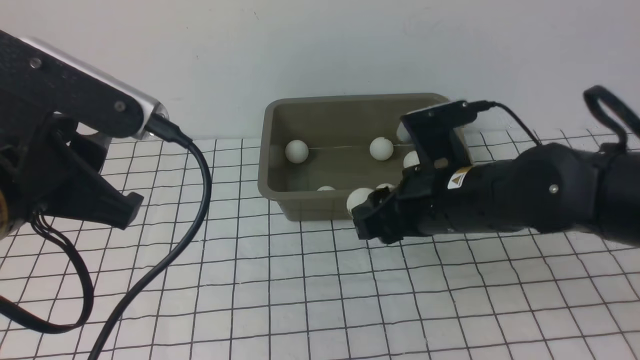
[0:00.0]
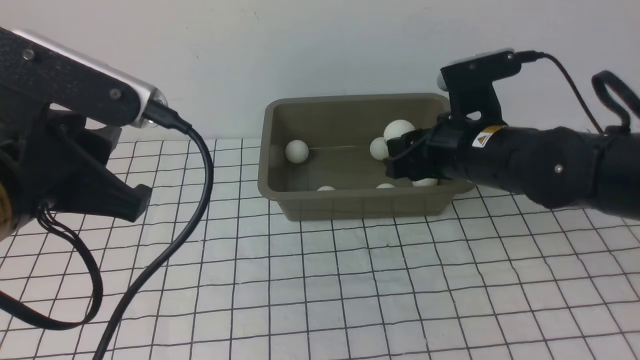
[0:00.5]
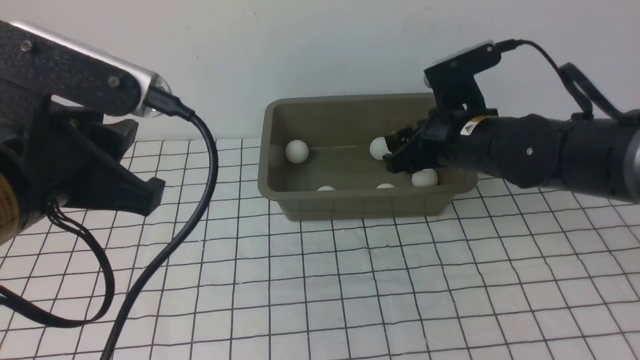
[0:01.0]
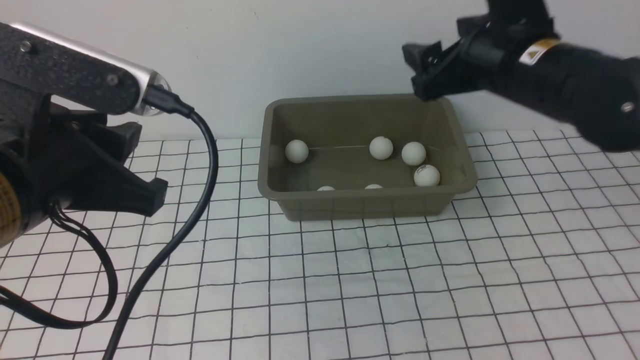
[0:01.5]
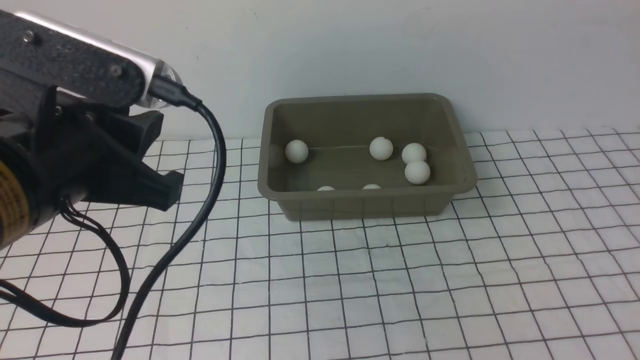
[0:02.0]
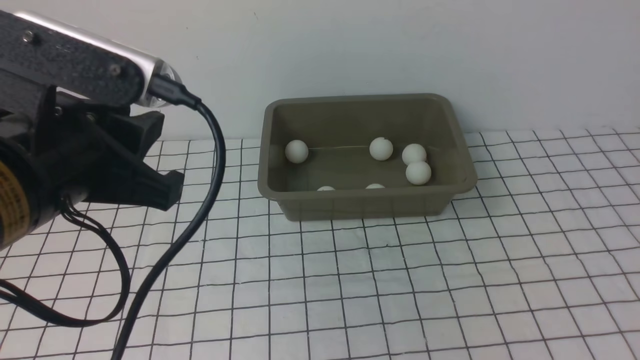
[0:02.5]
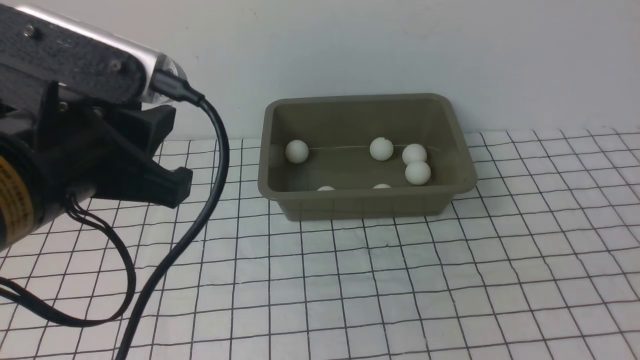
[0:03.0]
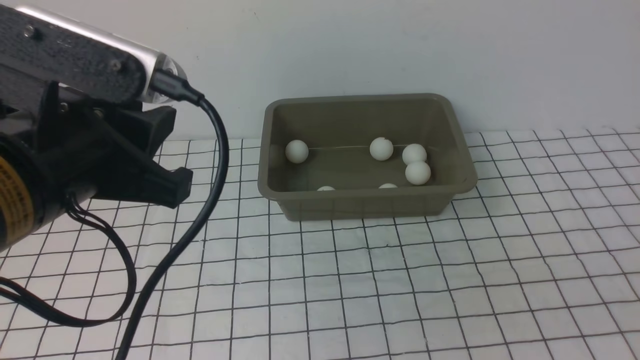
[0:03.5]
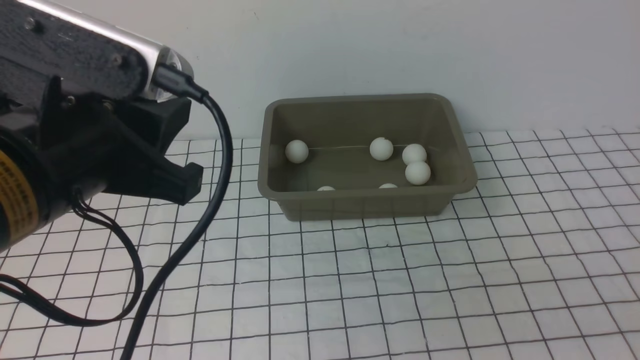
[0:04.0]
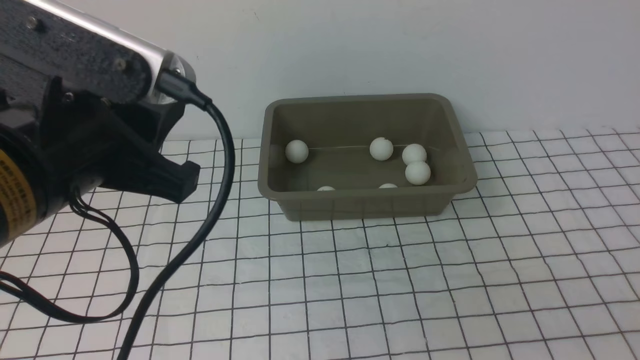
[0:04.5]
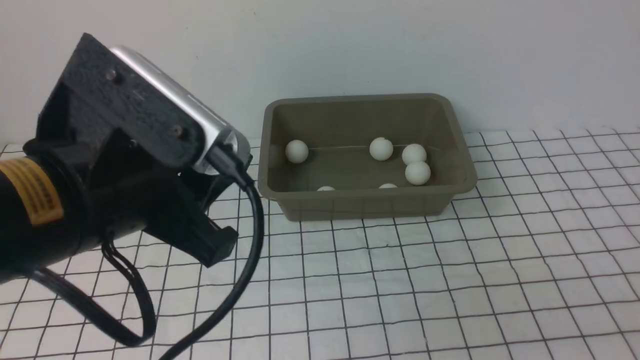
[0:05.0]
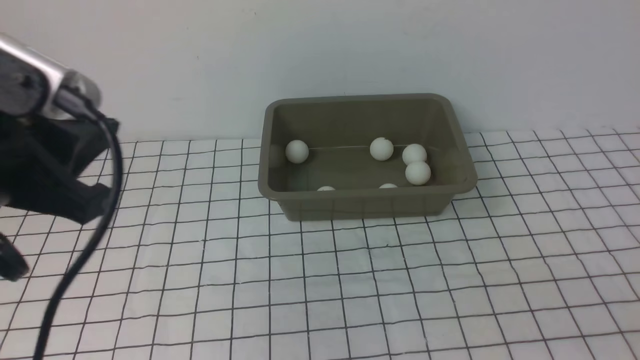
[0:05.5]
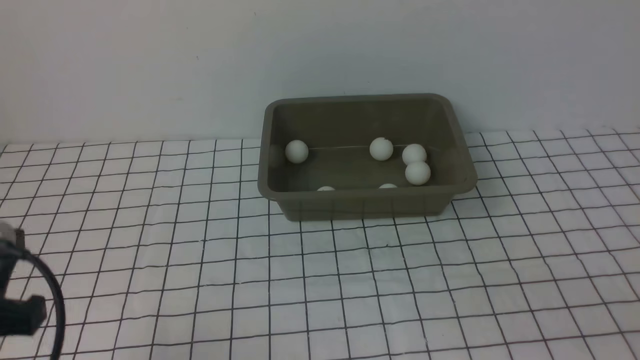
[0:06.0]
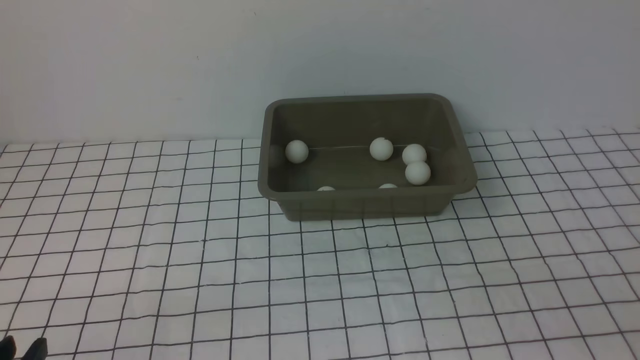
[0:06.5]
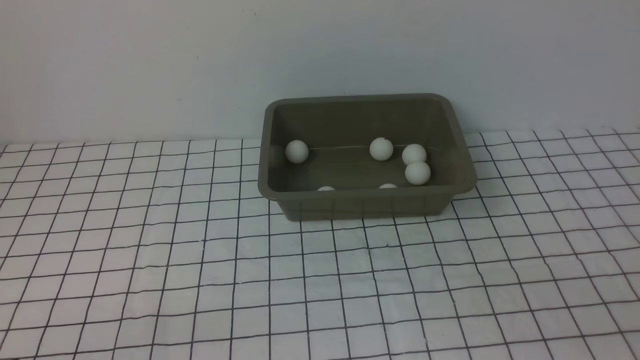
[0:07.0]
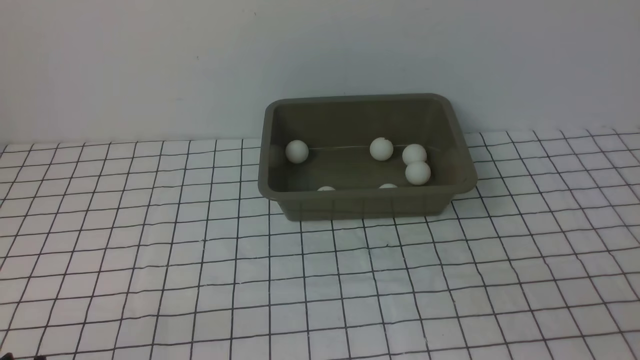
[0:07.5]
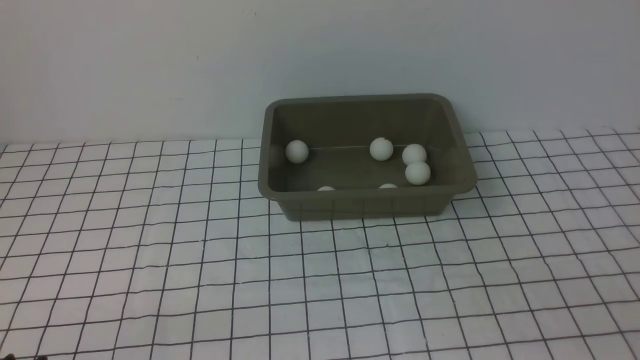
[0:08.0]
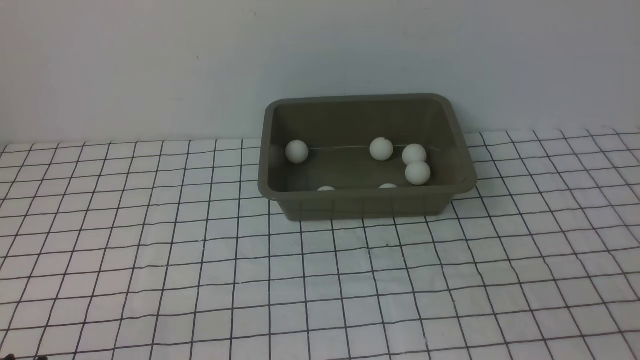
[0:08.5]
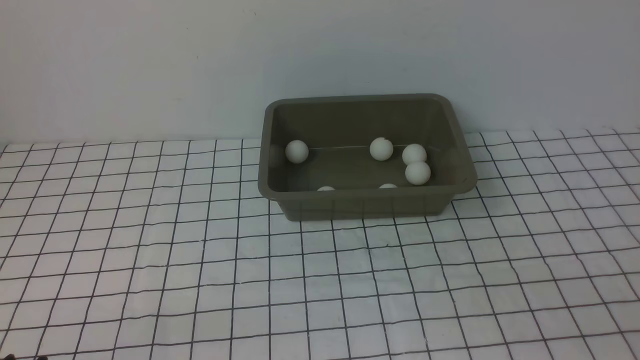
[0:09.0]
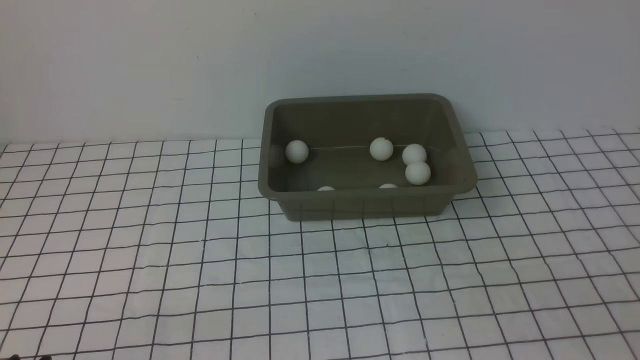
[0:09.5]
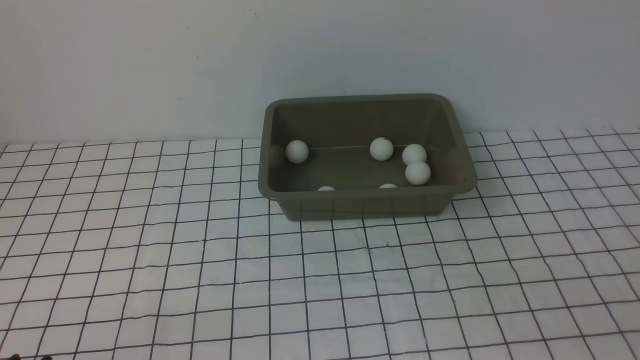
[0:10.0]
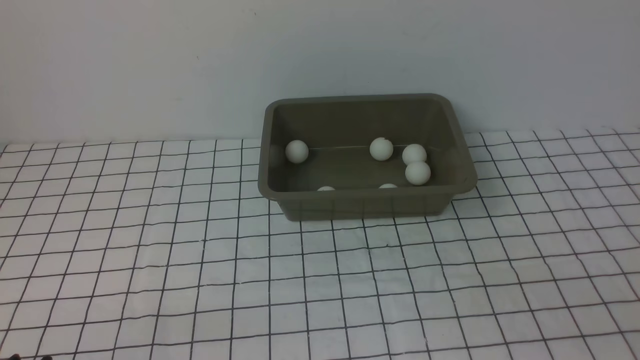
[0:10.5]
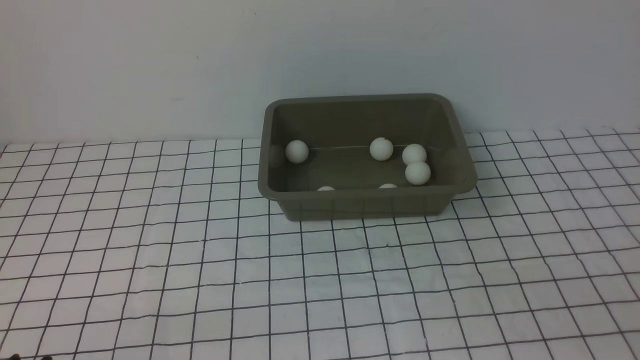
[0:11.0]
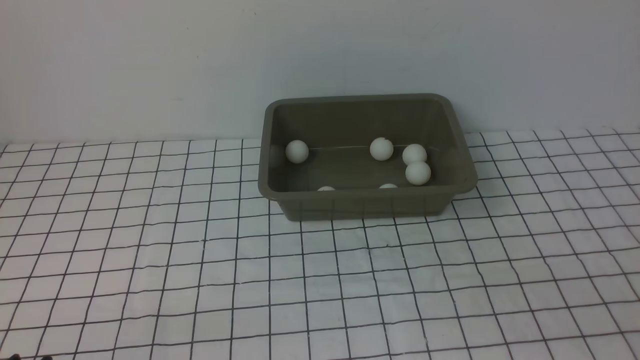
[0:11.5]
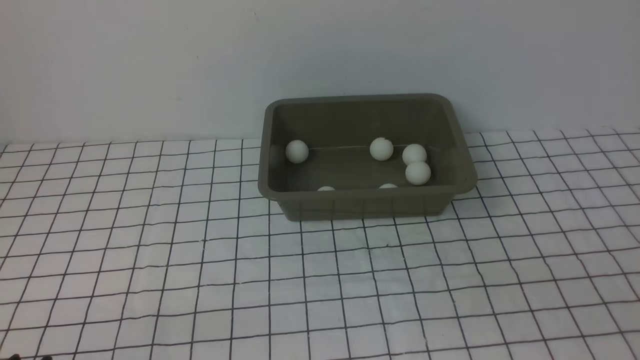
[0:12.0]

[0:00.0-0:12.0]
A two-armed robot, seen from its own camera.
Step, 0:00.0 to 0:01.0: use the right arm to put the table tennis ball into the box.
0:00.0 to 0:02.0: The right gripper shifts some 25 cm upward and to the right, and opens.
0:02.0 to 0:04.0: The right gripper heads downward and backward, covering about 25 cm.
0:04.0 to 0:06.0: The left gripper goes roughly 15 cm to the left, downward and backward.
0:06.0 to 0:08.0: The left gripper travels downward and backward by approximately 10 cm.
0:08.0 to 0:10.0: Both grippers stay about where they are.

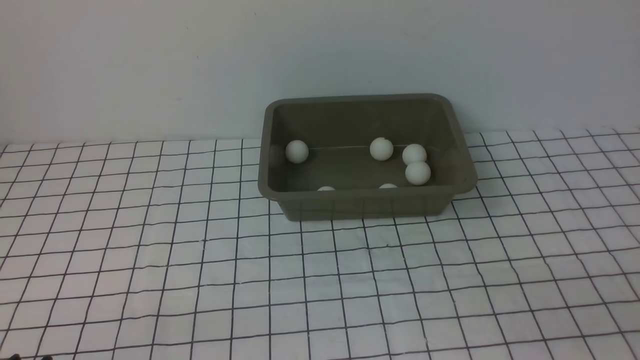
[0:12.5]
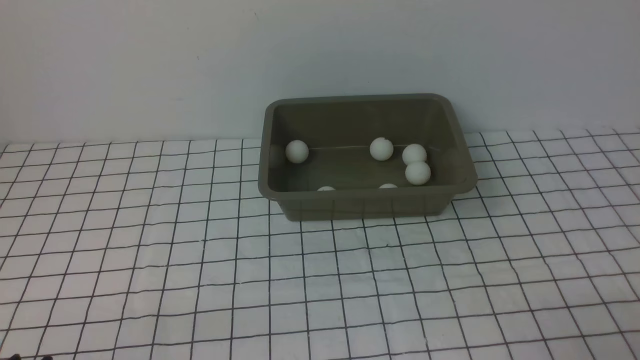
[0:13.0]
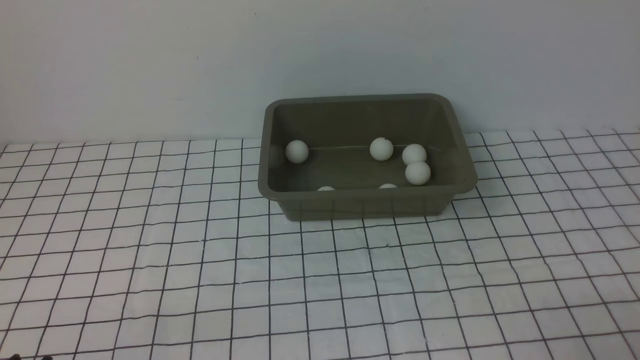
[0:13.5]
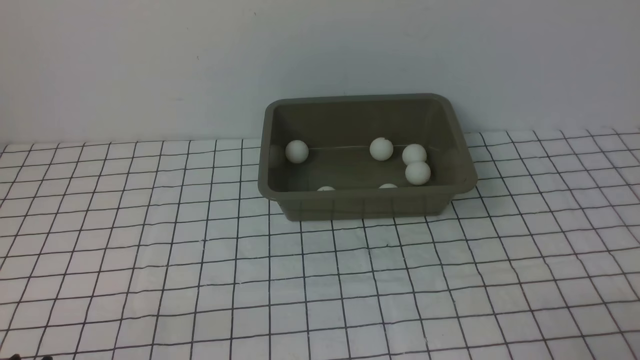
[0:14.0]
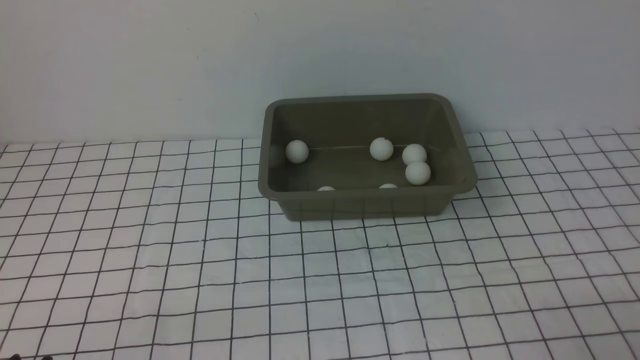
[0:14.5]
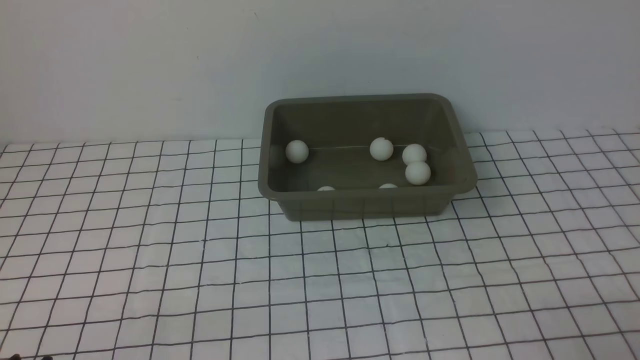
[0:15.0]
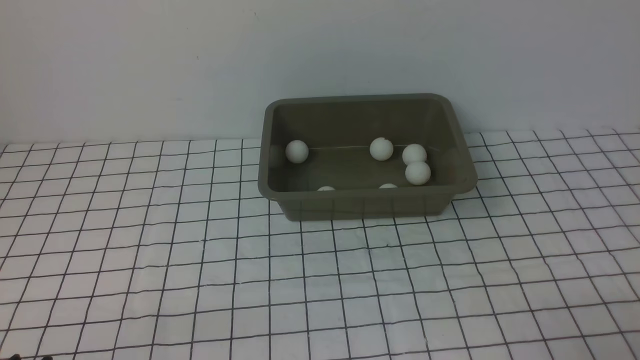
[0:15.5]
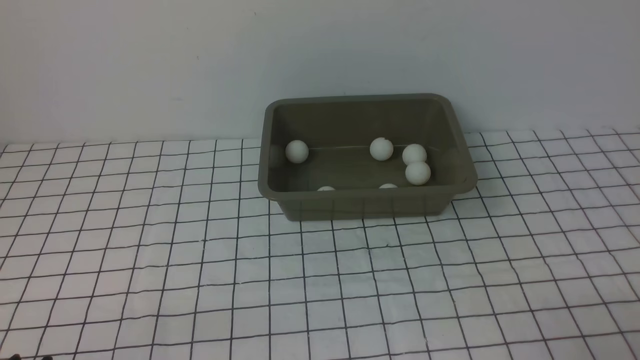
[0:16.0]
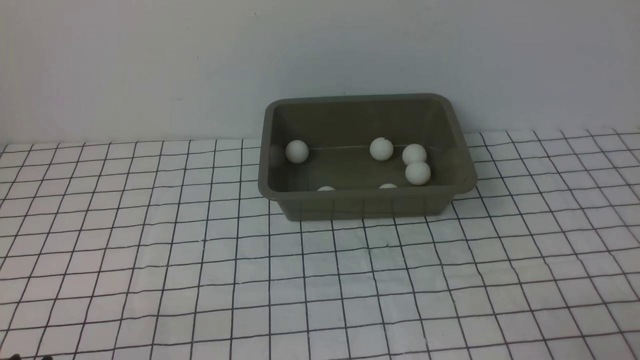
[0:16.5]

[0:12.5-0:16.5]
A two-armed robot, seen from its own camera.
0:14.5 to 0:16.5: Neither gripper changes place.

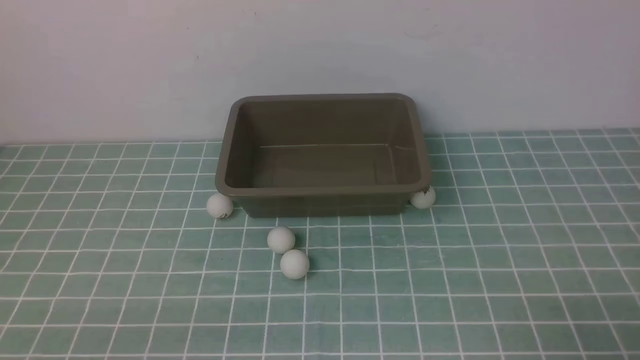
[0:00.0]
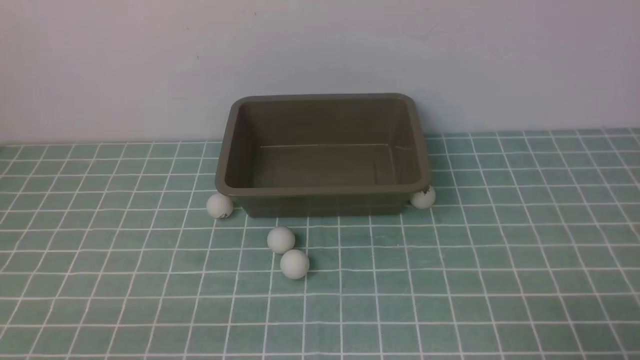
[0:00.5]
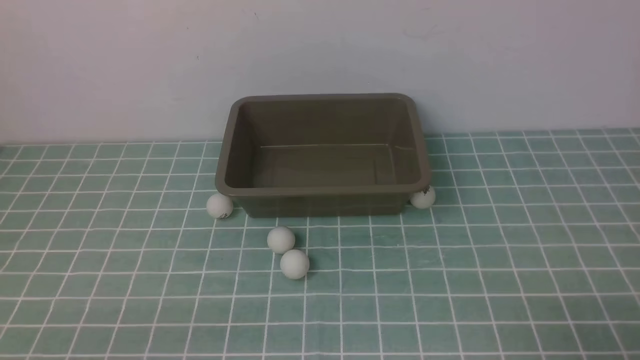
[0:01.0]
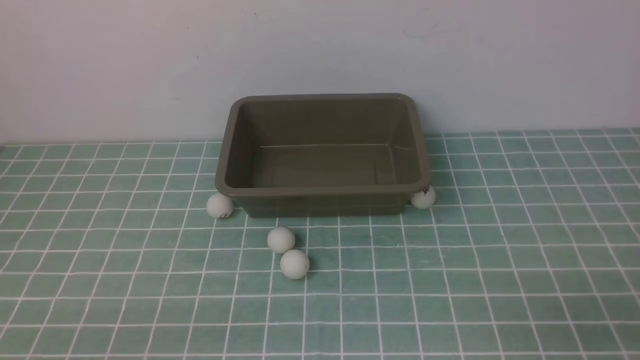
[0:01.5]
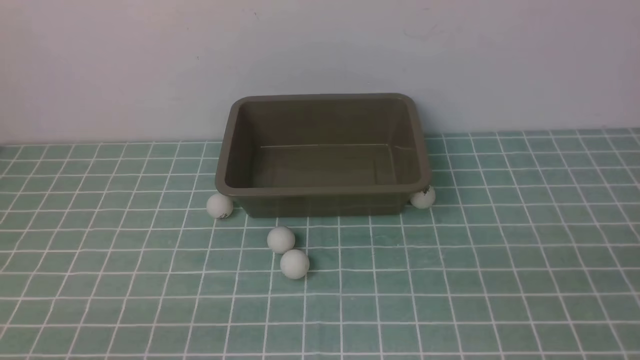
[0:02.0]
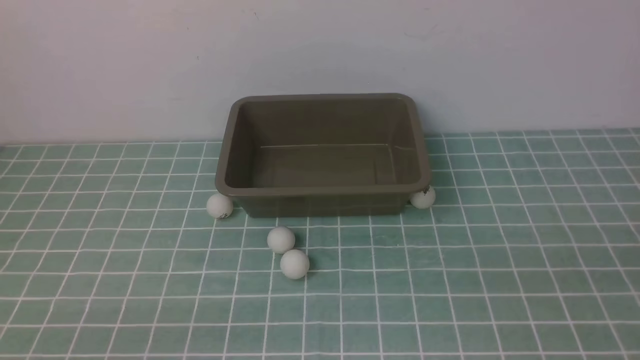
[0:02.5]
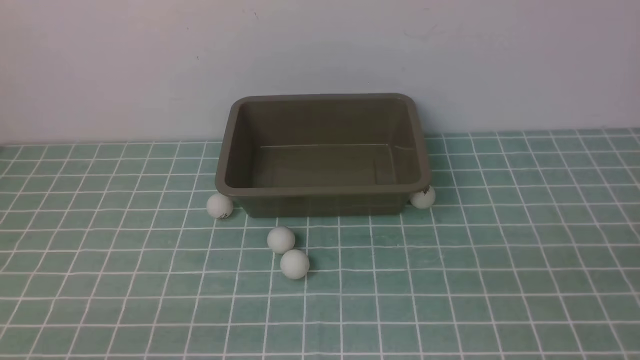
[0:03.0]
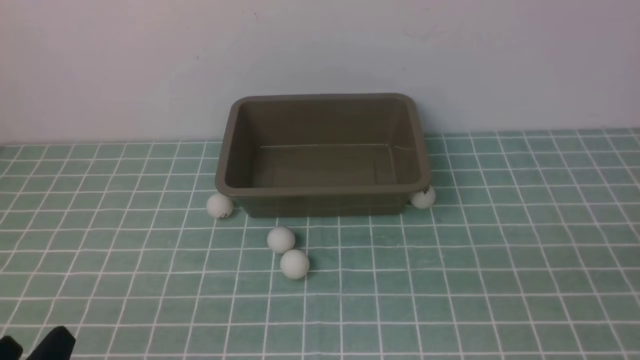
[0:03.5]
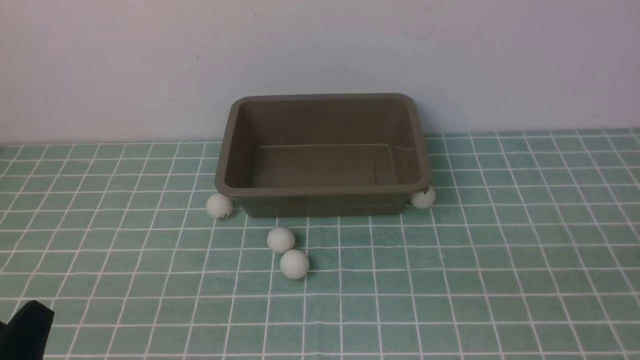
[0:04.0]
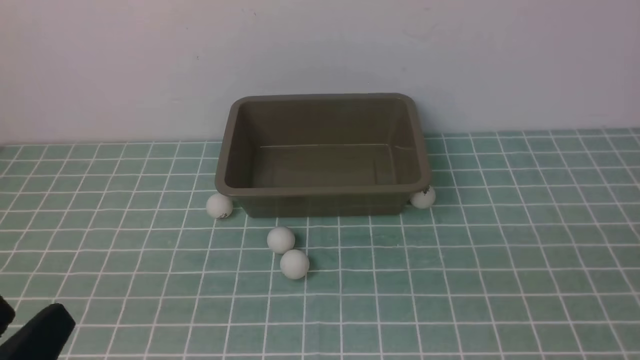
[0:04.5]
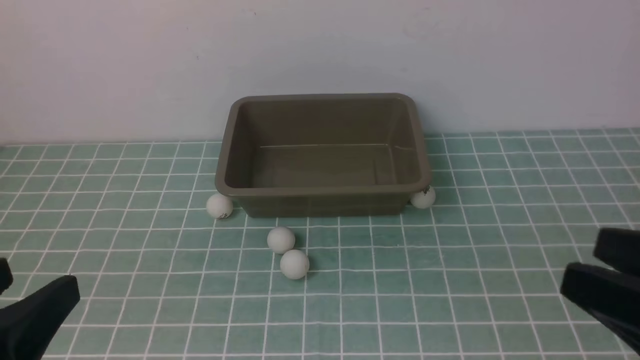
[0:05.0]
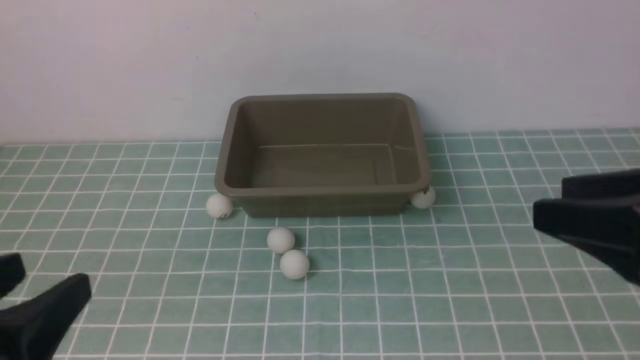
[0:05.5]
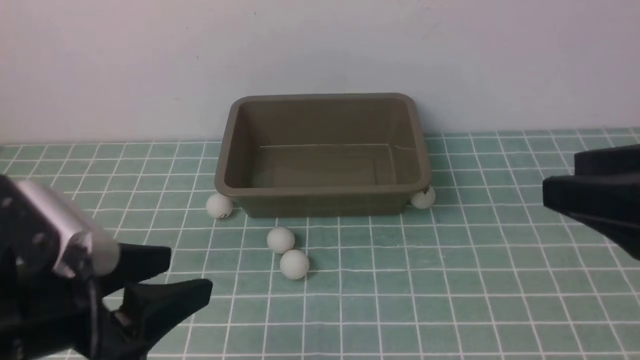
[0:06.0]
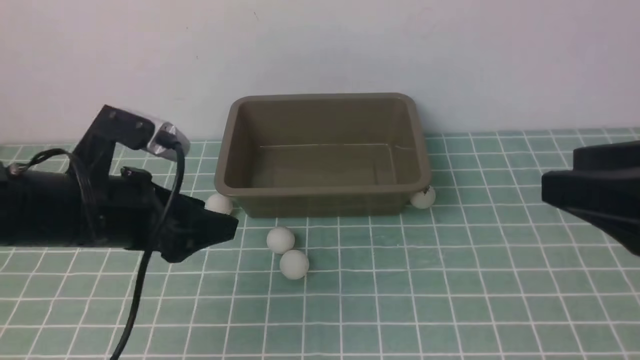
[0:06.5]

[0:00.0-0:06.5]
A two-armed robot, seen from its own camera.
0:02.0 to 0:04.5: The left gripper moves upward, some 10 cm.
0:04.5 to 0:06.5: The left gripper moves forward, some 20 cm. Meanwhile the right gripper shifts about 15 cm forward.
